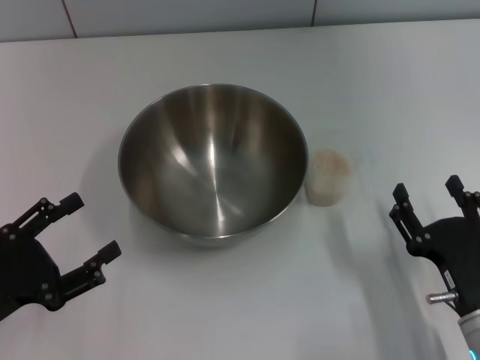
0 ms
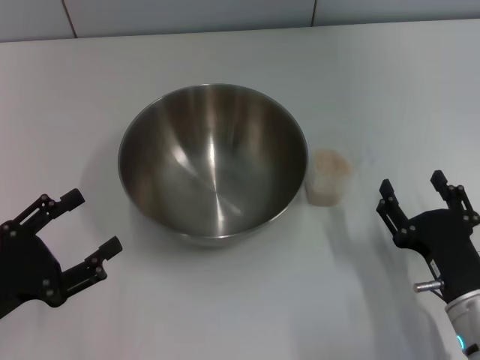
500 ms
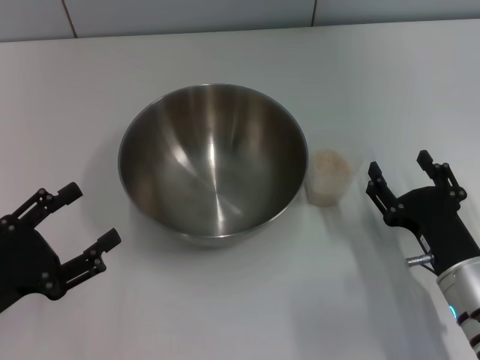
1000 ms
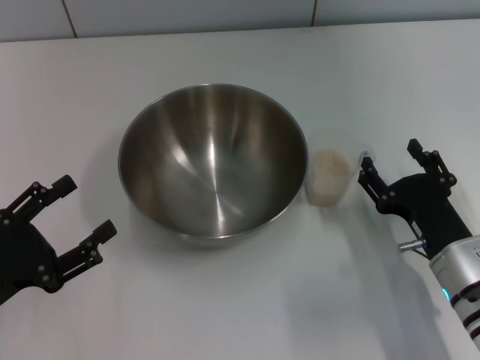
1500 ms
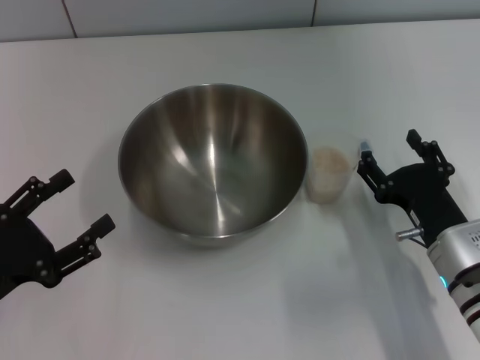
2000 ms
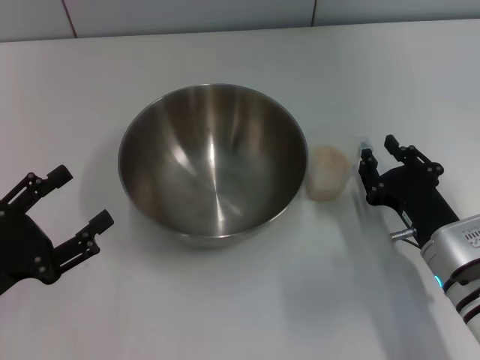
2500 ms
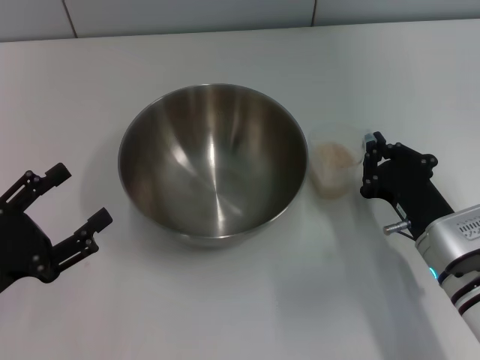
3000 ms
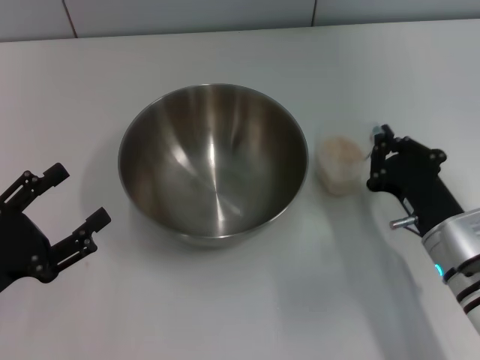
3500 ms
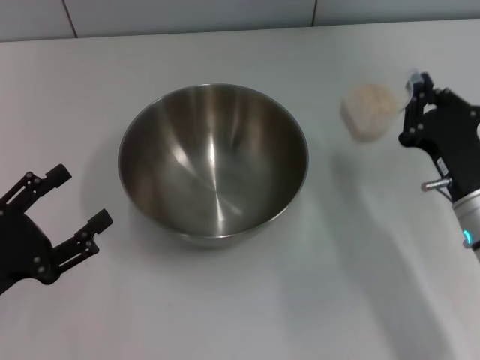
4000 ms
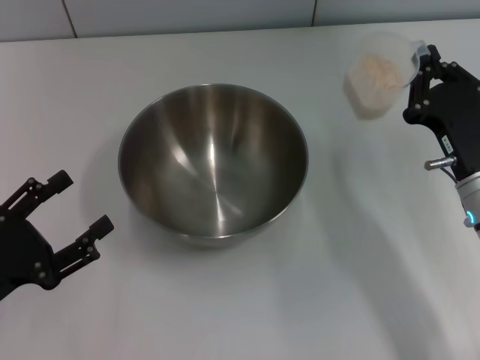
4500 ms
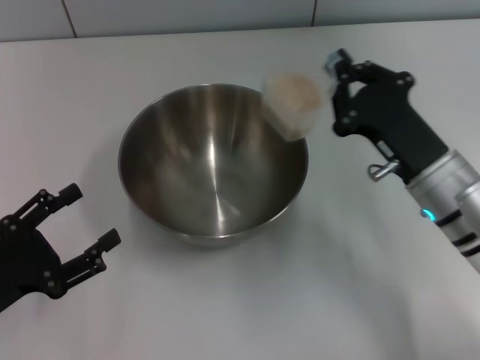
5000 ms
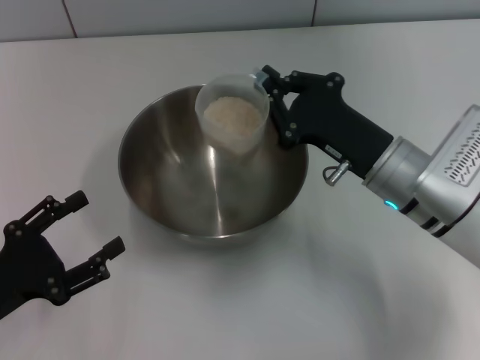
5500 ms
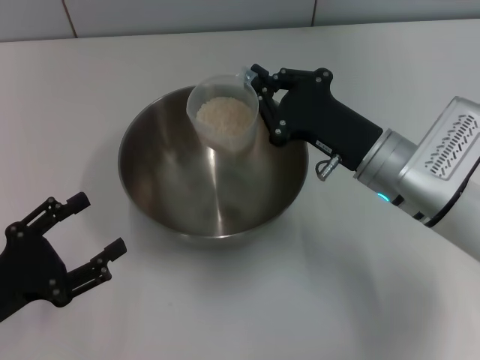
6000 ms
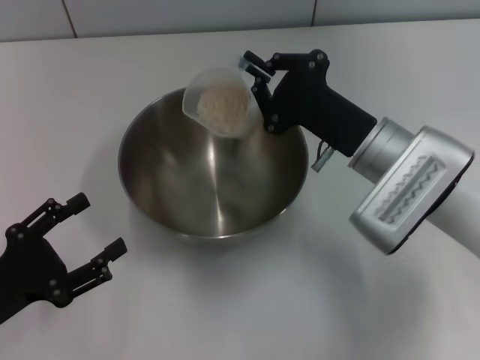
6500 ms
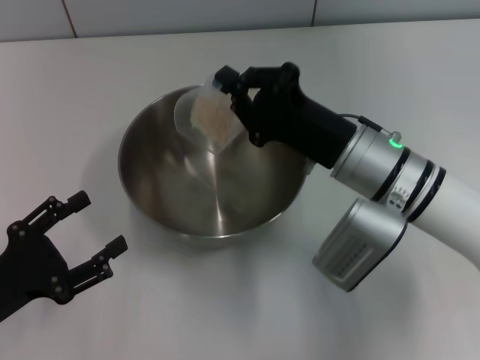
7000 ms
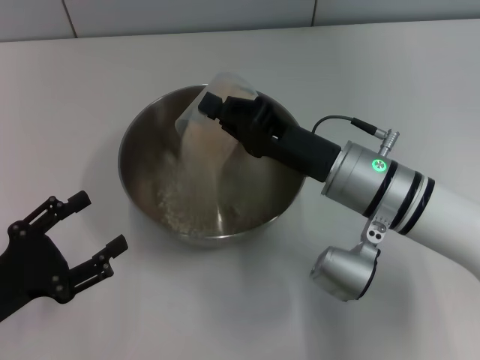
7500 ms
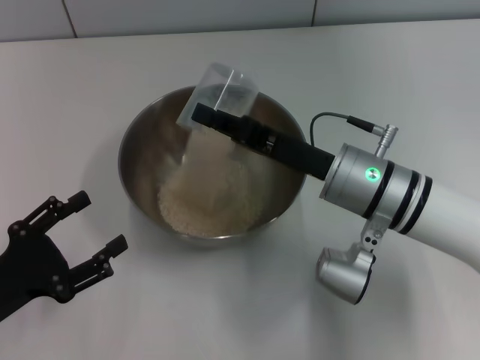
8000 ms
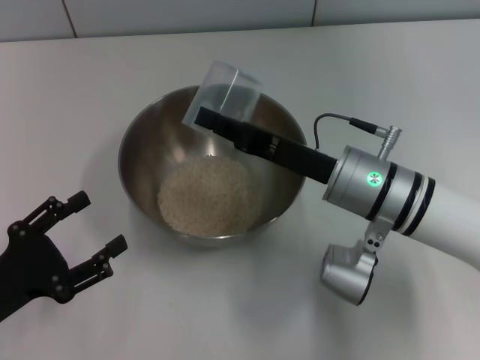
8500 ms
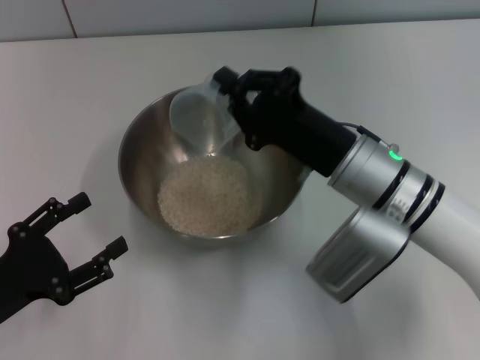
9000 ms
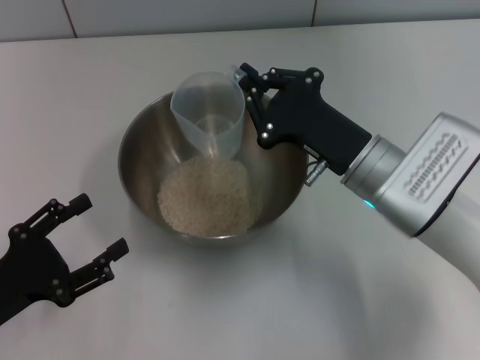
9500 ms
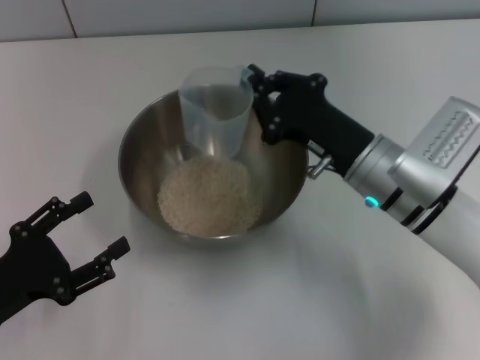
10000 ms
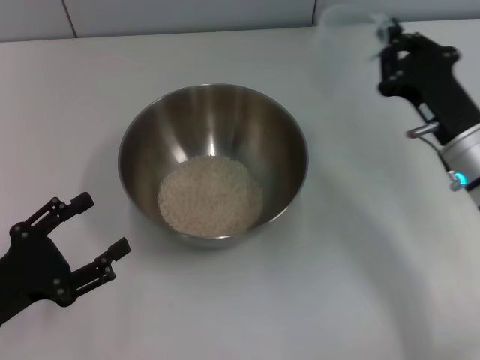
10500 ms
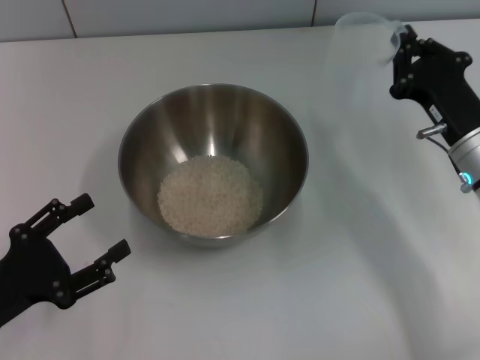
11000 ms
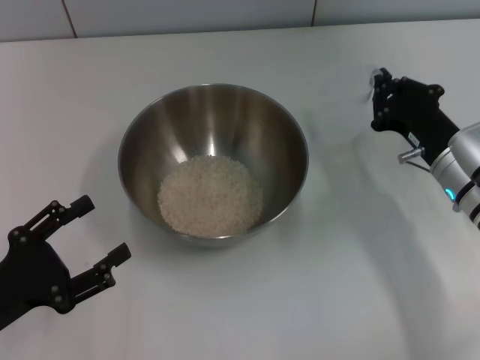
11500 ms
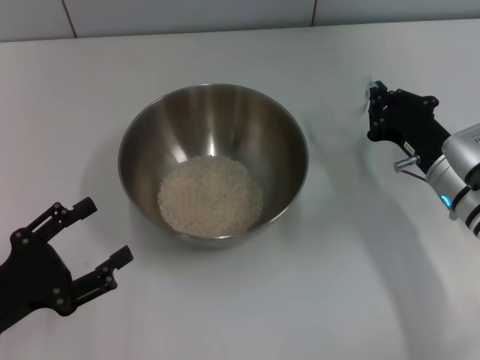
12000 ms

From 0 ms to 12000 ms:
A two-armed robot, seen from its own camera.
Task of the whole recording: Place the bowl in the middle of the table with one hand and pour the rice from the grain cup into it with the other hand.
Step, from 0 ms to 3500 ms: Pick up the cup with rice in it with the right gripper.
Step, from 4500 ms to 10000 ms: Pour the rice from the cup into the bowl with the right gripper.
From 0 ms to 2000 ms: The right gripper heads forward, covering approximately 10 cm.
From 2000 ms to 4000 ms: The right gripper closes its fingers.
From 4000 ms to 6000 ms: The right gripper travels to the left and forward by about 10 cm.
From 10000 ms to 12000 ms: The right gripper is displaced to the right by about 10 cm.

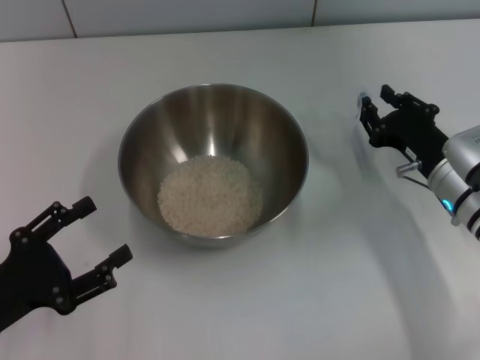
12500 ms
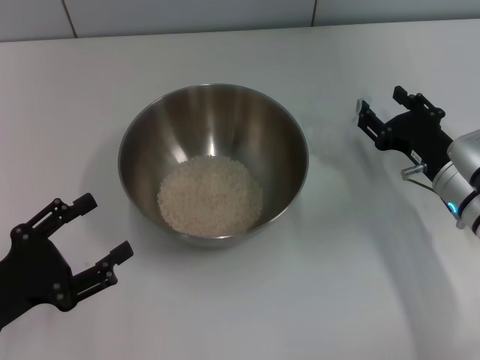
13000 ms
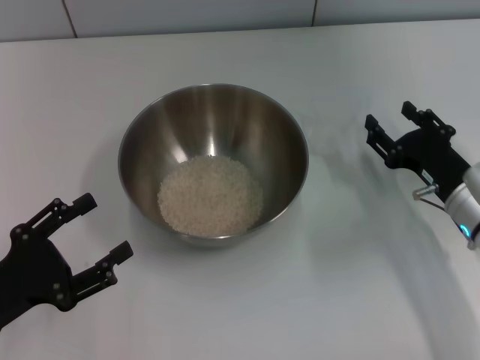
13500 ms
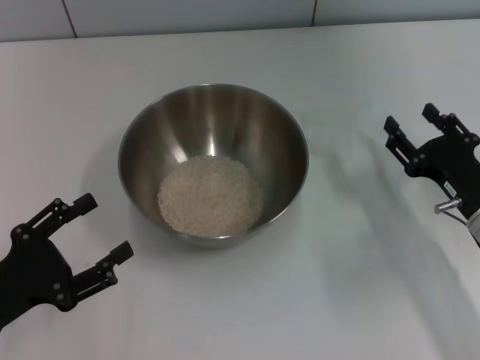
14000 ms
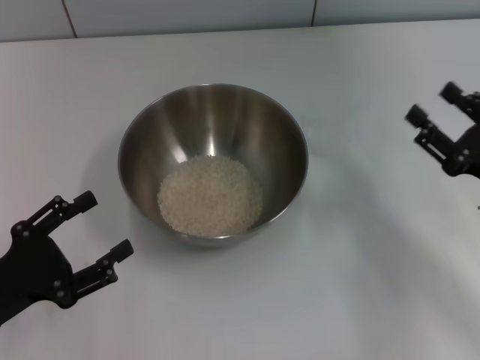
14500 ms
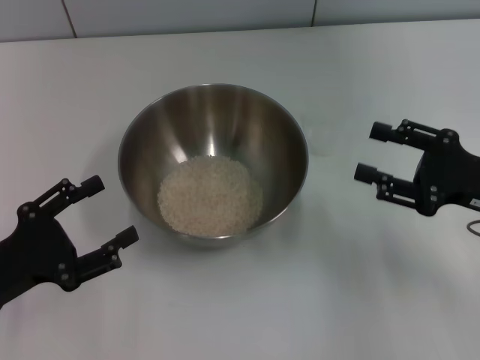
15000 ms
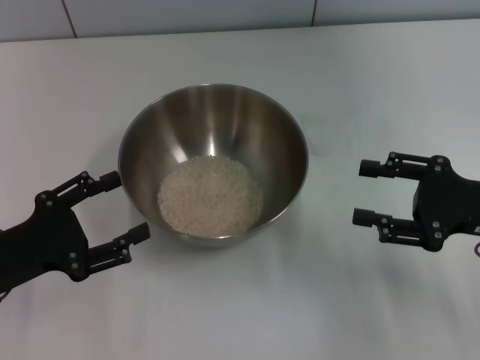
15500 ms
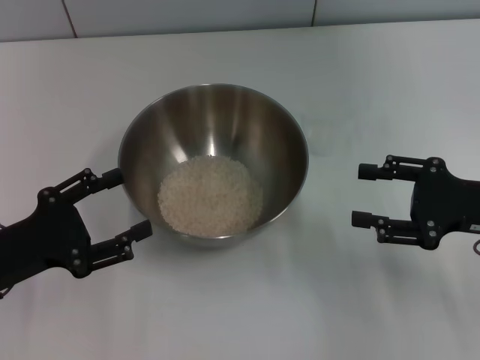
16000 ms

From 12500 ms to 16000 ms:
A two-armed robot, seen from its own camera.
Task of the whole recording: Place the bowl in the middle of the table with one hand and pour the rice from the grain cup into it with the other hand.
From 12500 ms to 14500 ms: The right gripper moves backward and to the right, some 10 cm, and opens.
